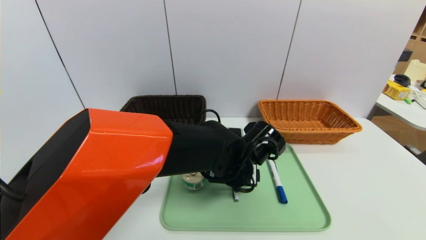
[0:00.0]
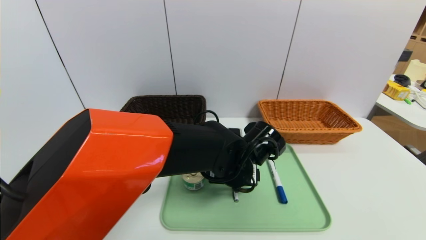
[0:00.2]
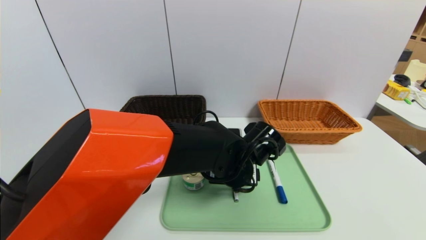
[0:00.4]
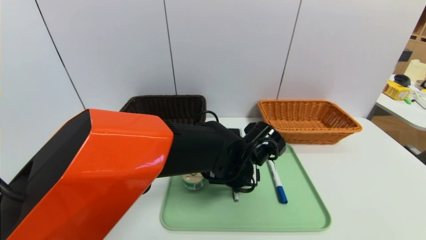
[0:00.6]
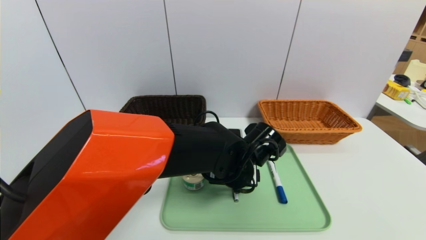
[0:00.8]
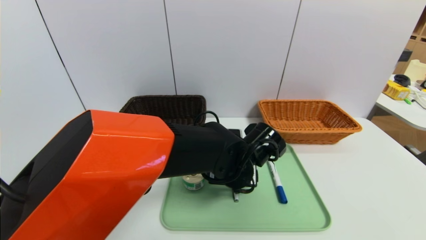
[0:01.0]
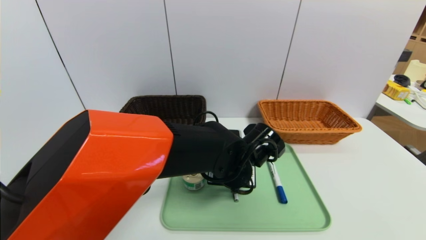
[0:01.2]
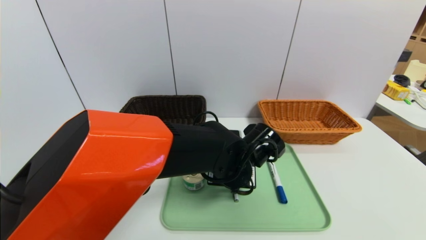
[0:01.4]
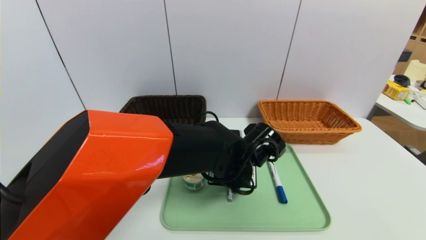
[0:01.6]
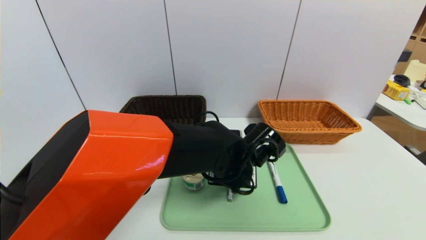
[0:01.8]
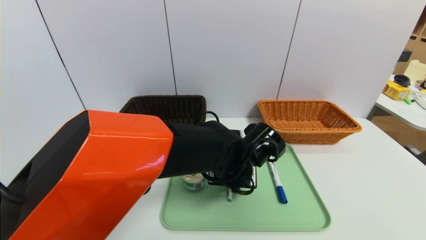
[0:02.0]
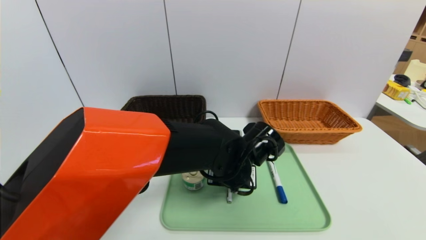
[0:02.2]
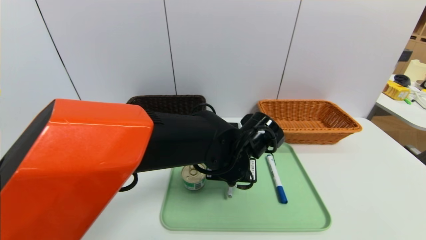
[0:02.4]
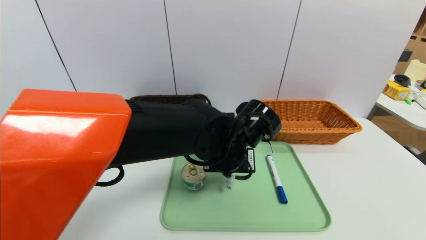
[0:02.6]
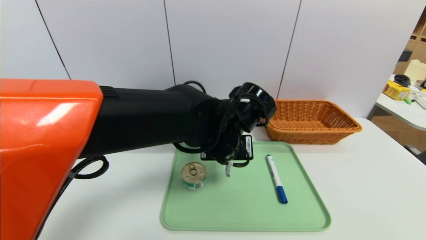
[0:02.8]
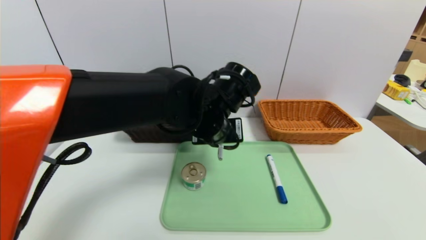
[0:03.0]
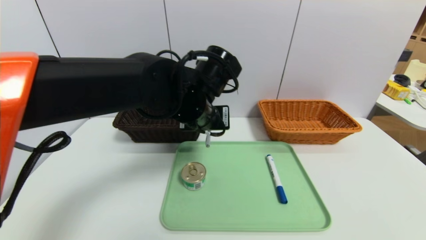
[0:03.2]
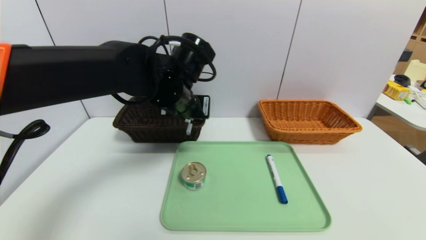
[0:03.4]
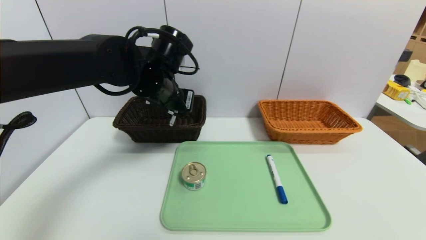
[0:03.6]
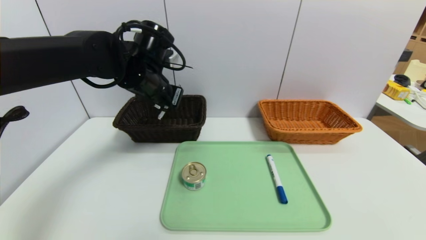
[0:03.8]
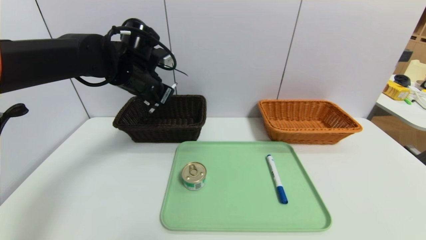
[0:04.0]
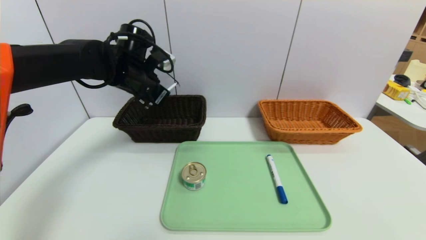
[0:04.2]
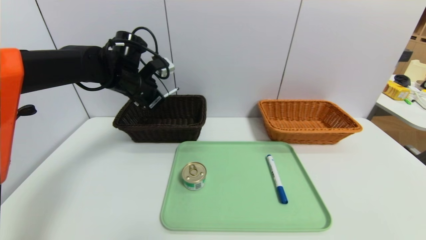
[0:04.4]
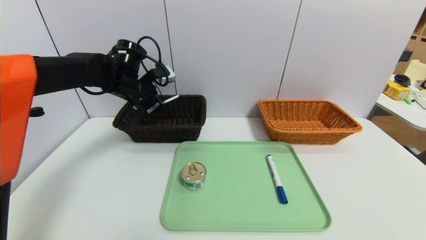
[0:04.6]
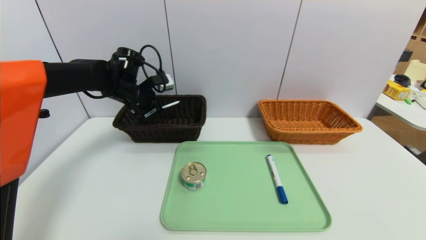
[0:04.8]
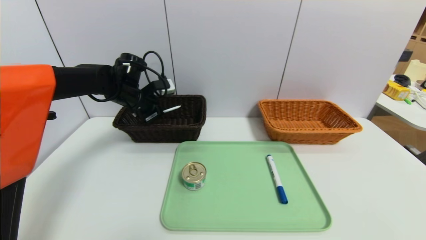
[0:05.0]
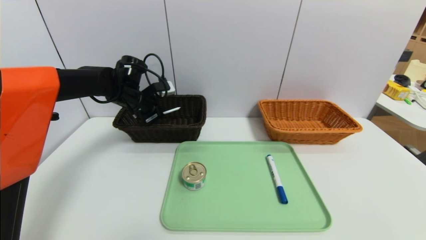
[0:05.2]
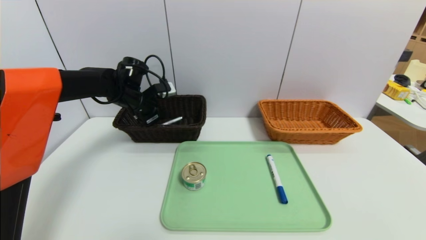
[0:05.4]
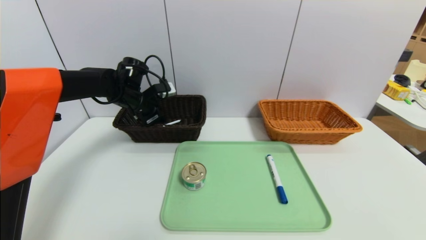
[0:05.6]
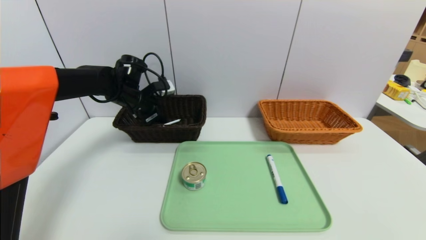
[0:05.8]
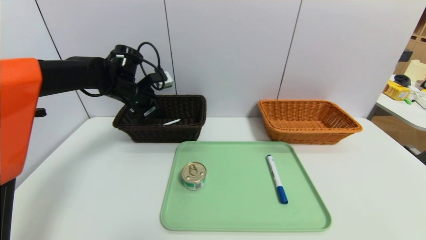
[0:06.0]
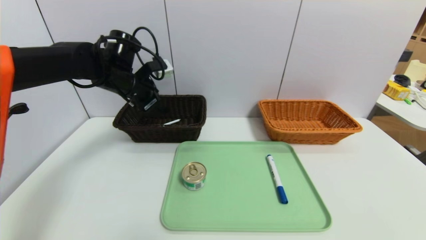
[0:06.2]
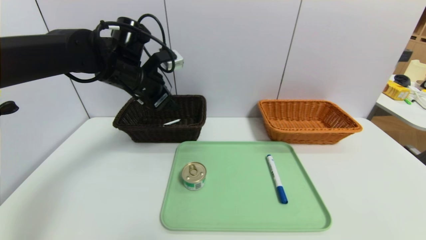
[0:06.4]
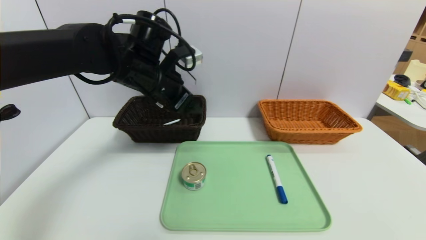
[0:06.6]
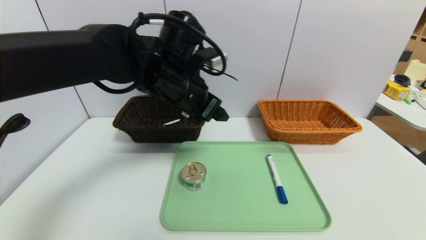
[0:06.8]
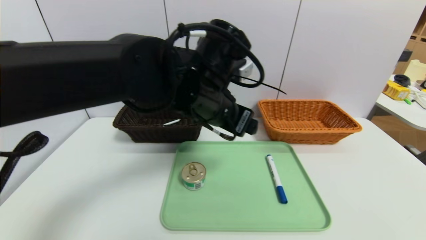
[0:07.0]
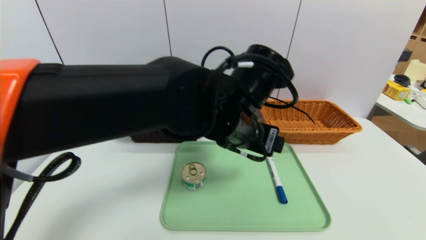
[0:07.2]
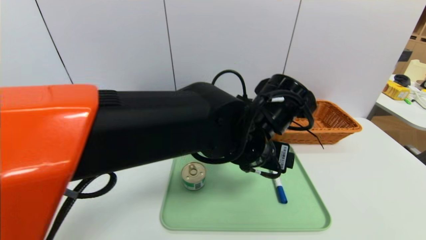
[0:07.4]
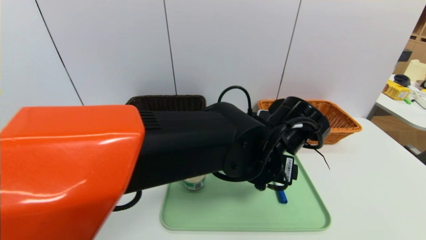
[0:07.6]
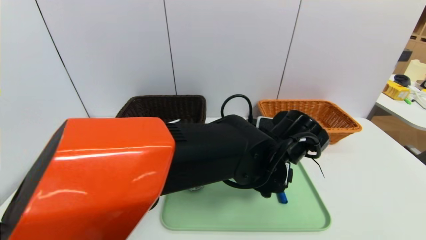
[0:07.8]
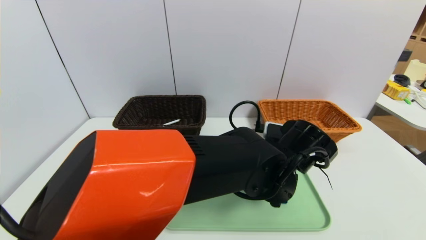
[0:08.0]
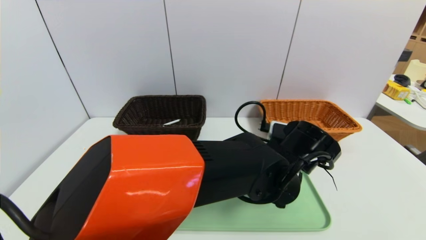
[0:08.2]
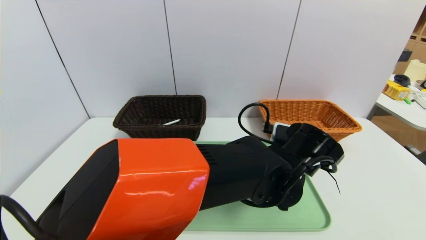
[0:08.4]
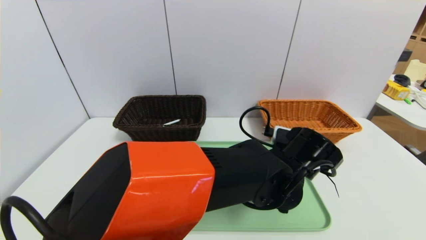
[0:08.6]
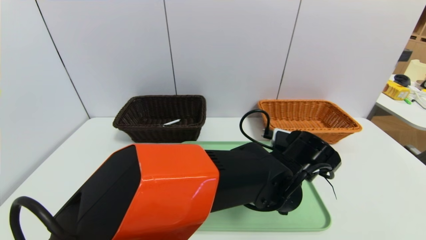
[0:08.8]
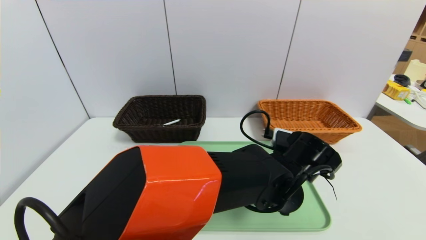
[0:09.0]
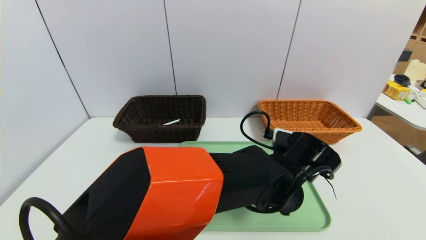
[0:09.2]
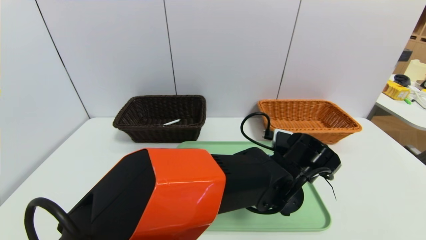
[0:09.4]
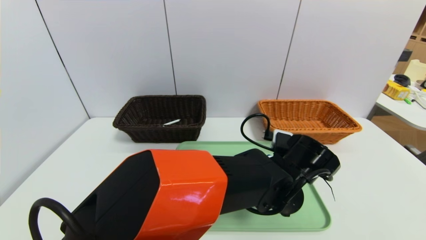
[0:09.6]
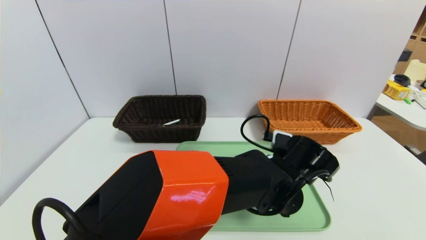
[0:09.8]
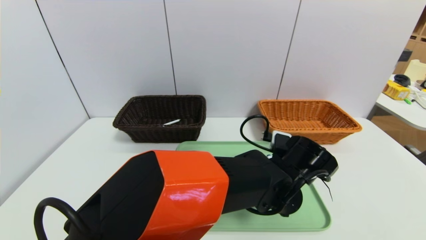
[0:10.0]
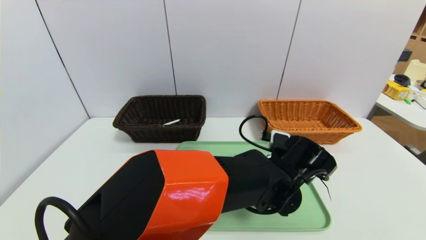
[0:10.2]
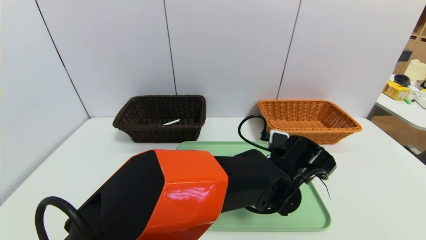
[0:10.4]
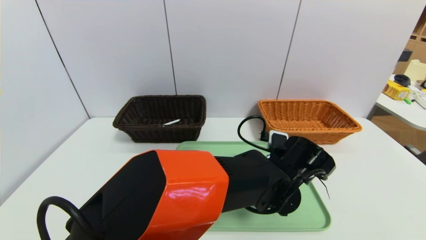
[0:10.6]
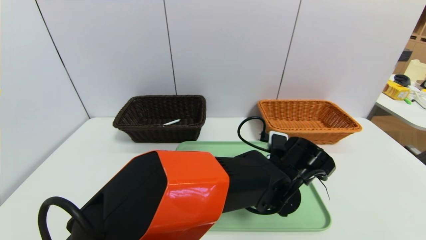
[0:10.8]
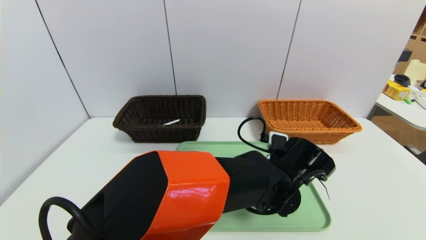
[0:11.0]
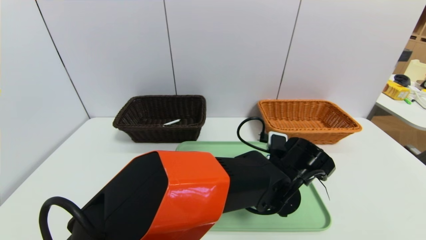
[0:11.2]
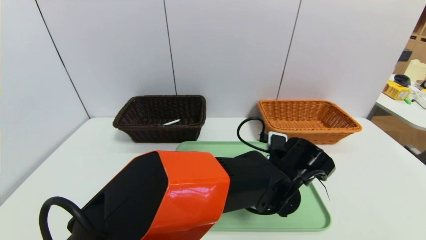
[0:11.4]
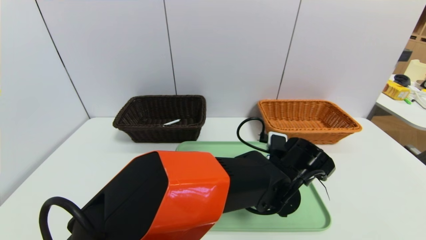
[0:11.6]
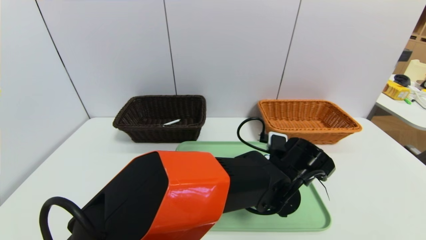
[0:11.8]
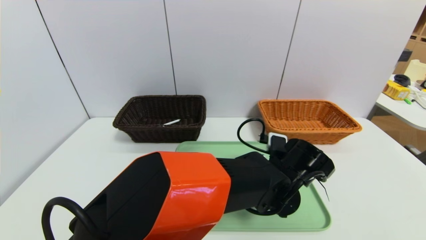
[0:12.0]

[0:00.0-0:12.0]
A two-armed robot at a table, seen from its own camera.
Task of the whole recording: place the food in the right basket with the right gripper, and place the non food items in the left basket with the left gripper.
Step, 0:00.0 to 0:06.0: Grasp the black marker and put it in the left basket.
0:00.0 to 0:01.6: The left gripper closes up.
0:01.6 to 0:03.0: The left gripper moves upward, some 10 cm.
0:03.0 to 0:04.4: The left gripper shifts about 25 cm to the left and forward.
0:04.4 to 0:06.0: The left gripper opens its fingers.
0:06.0 to 0:07.6: The left gripper shifts some 35 cm to the right and backward.
0:07.6 to 0:09.0: The left gripper is displaced downward by roughly 5 cm.
0:09.0 to 0:10.4: The grippers stay close to where they were, moving slightly.
0:10.4 to 0:12.0: The left gripper closes.

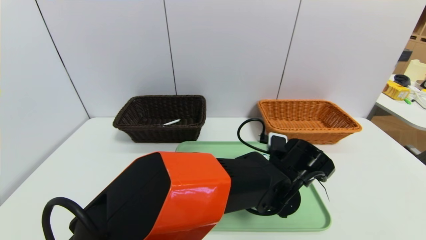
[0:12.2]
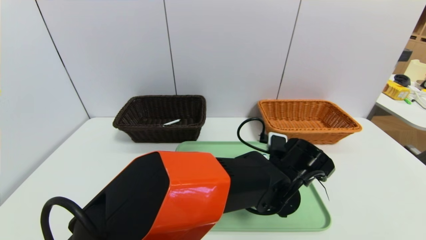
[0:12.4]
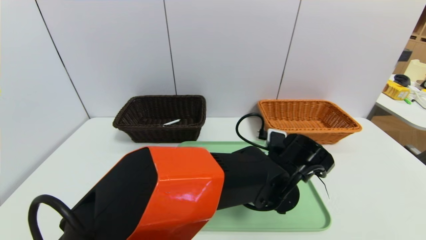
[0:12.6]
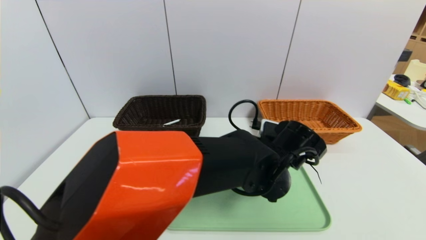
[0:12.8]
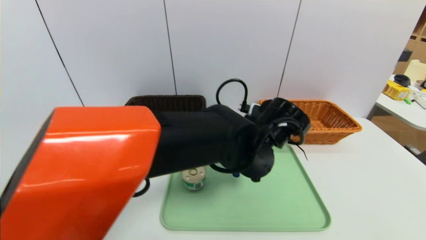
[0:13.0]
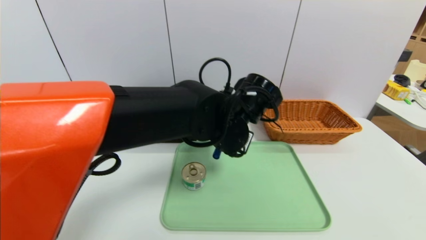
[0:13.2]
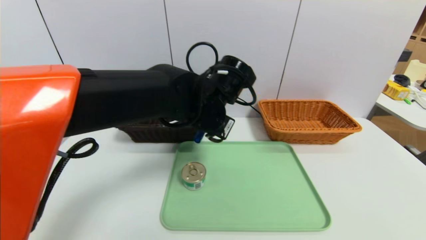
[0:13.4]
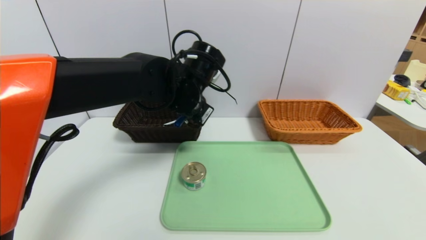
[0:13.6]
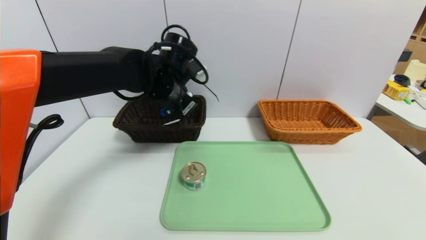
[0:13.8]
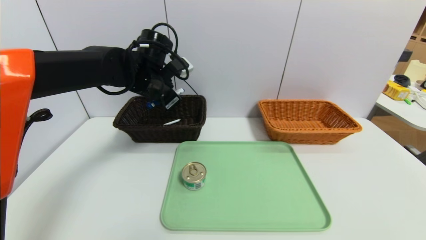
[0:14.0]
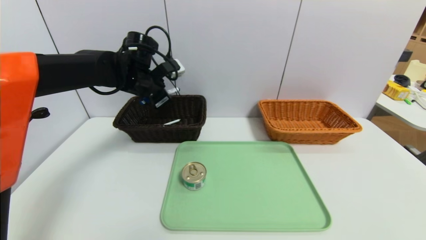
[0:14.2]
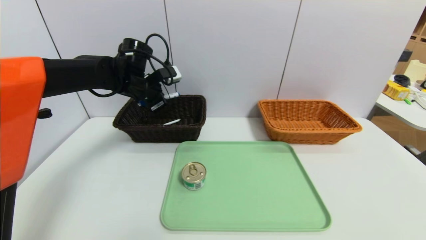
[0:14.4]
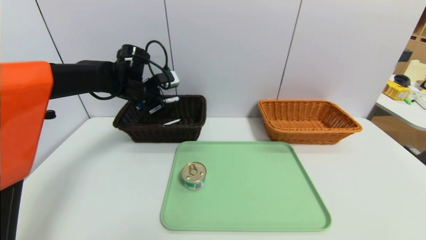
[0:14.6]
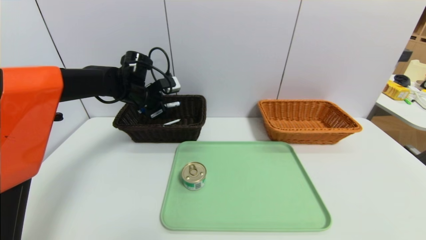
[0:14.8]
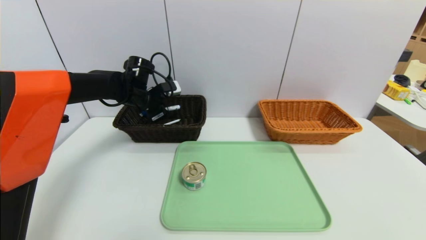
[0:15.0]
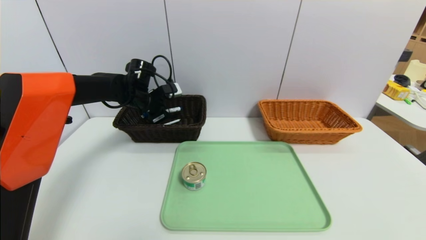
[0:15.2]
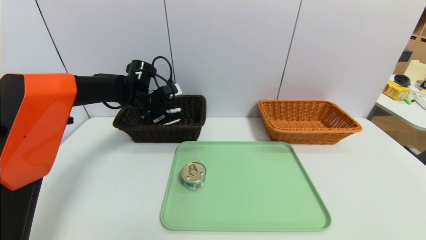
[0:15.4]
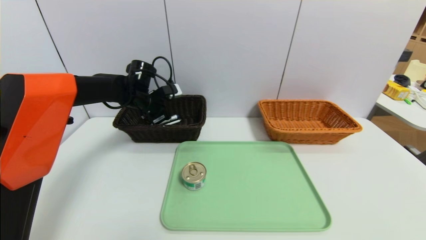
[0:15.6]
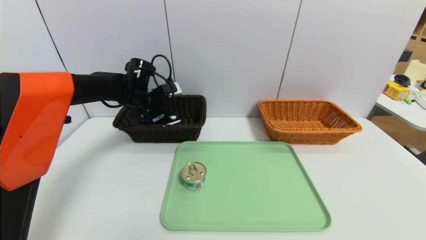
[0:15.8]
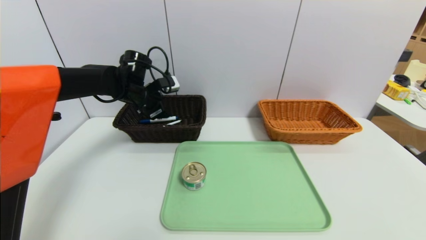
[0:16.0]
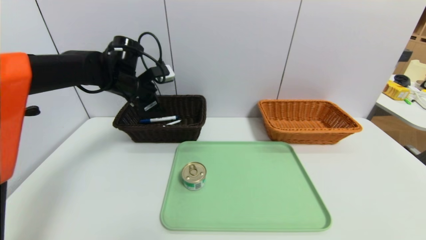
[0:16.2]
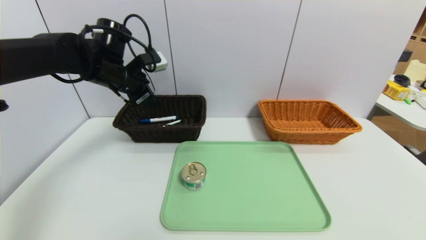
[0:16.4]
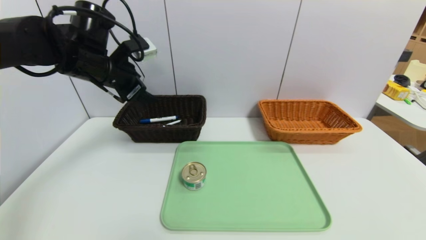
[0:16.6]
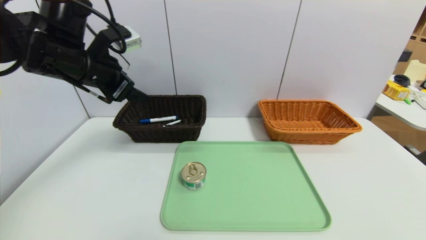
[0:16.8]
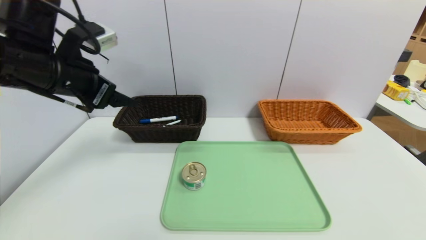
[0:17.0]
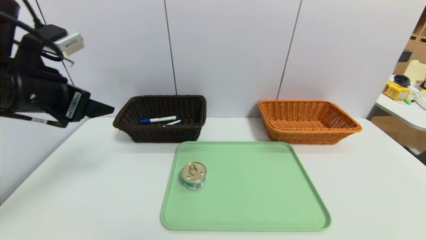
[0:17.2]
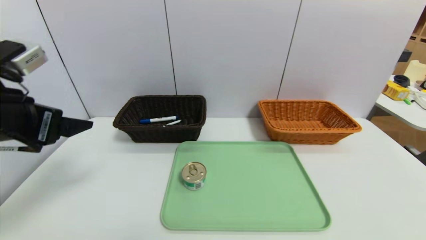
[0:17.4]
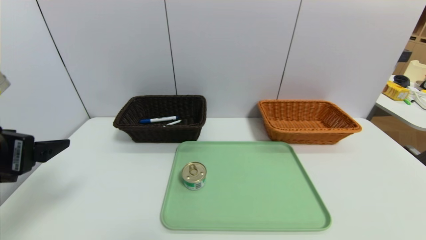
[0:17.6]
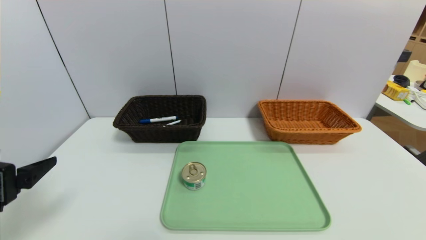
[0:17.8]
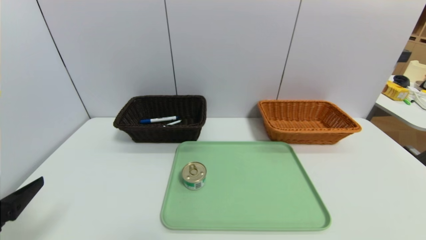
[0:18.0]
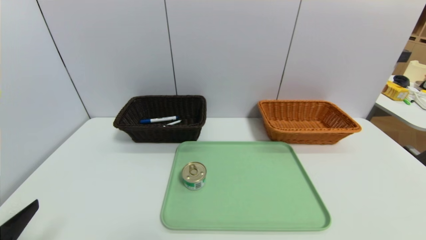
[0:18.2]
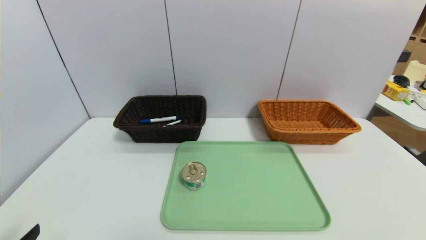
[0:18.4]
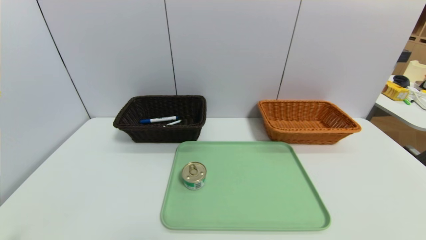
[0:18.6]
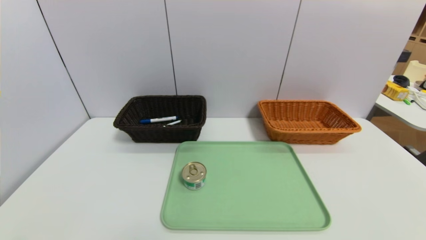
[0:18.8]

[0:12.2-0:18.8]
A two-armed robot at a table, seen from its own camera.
Task of the whole recording: place the food in the right basket with the right gripper, and place the non food items in the left basket with the left gripper.
Step, 0:12.2 to 0:16.0: Grasp the blue marker pen and put it in the left basket.
0:12.2 to 0:13.8: The left gripper heads to the left, upward and forward, covering some 30 cm.
0:13.8 to 0:15.4: The left gripper moves to the left, forward and downward, about 15 cm.
0:15.4 to 0:17.2: The left gripper is displaced backward and upward by about 25 cm, and opens up.
0:17.2 to 0:18.8: The left gripper goes some 30 cm backward and downward.
